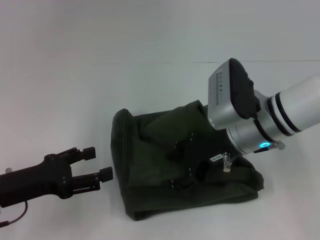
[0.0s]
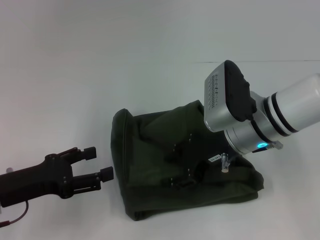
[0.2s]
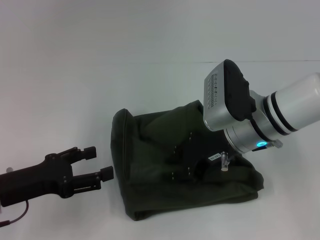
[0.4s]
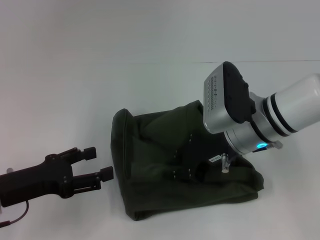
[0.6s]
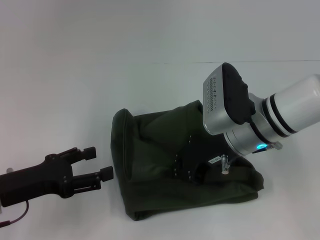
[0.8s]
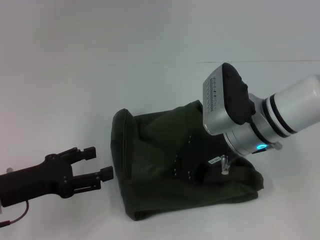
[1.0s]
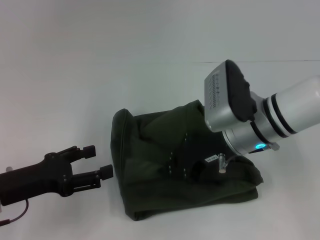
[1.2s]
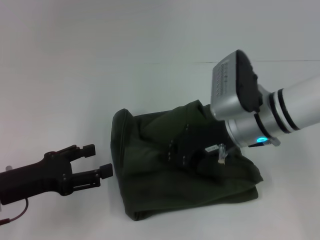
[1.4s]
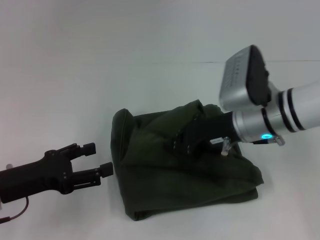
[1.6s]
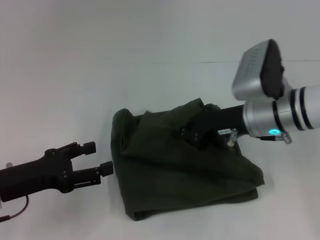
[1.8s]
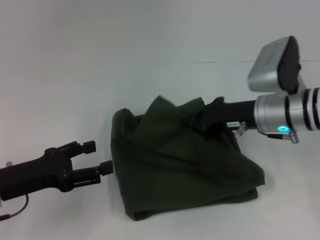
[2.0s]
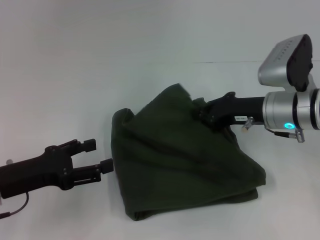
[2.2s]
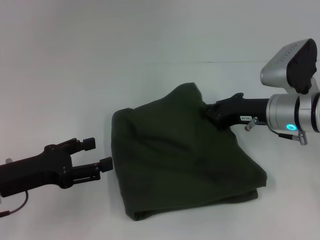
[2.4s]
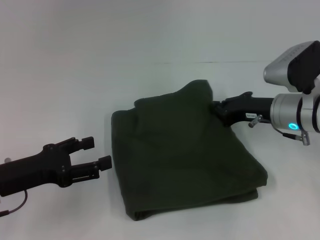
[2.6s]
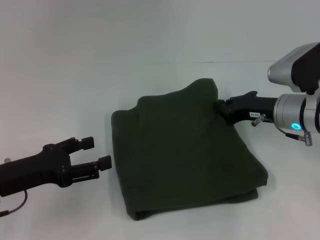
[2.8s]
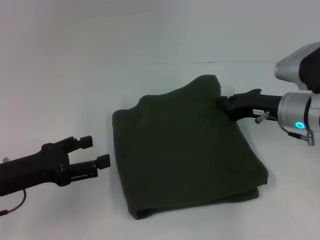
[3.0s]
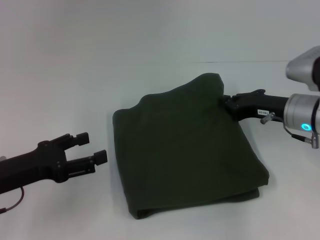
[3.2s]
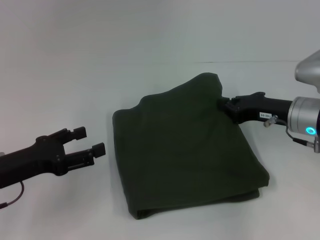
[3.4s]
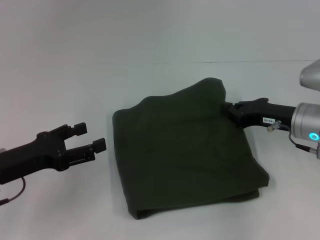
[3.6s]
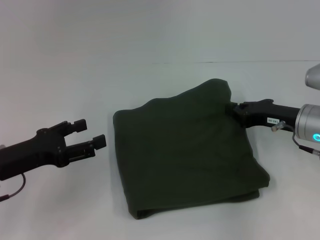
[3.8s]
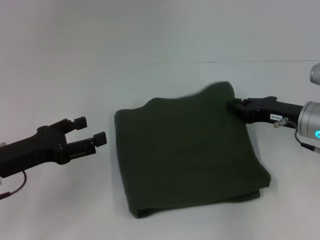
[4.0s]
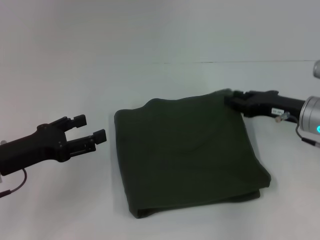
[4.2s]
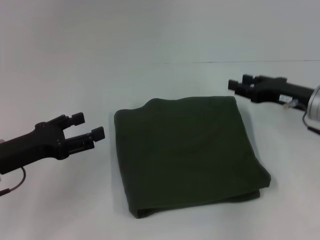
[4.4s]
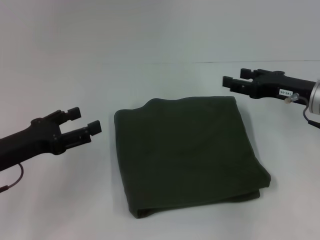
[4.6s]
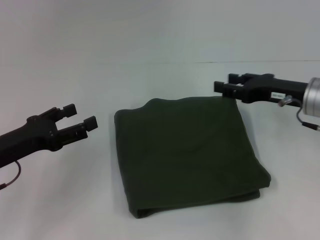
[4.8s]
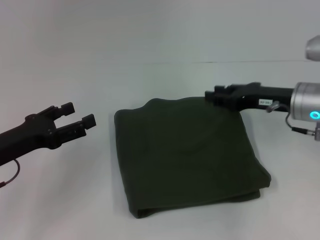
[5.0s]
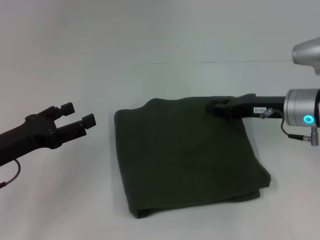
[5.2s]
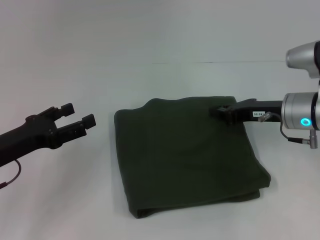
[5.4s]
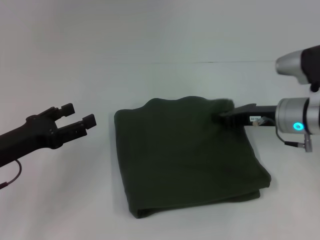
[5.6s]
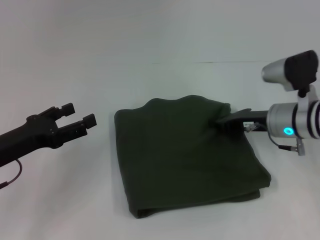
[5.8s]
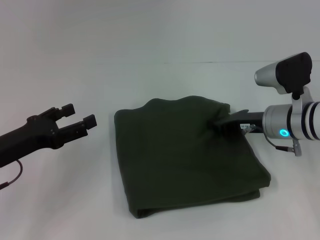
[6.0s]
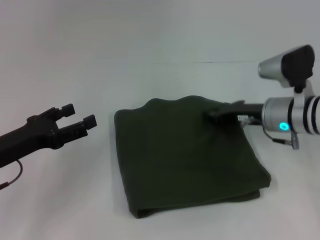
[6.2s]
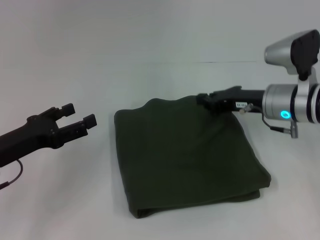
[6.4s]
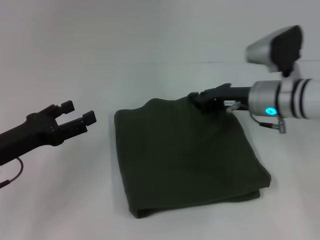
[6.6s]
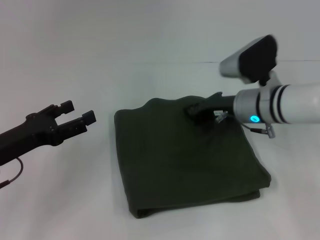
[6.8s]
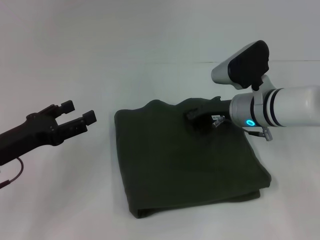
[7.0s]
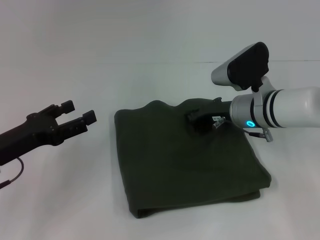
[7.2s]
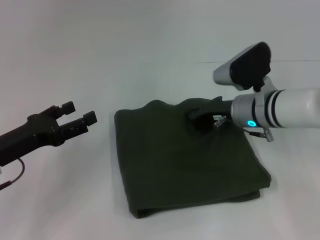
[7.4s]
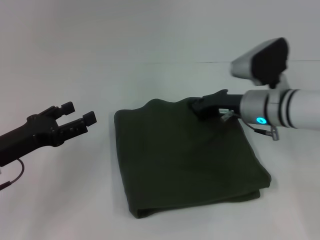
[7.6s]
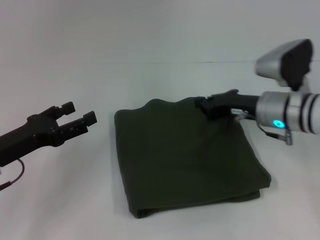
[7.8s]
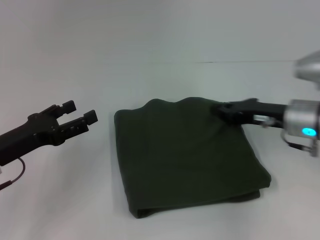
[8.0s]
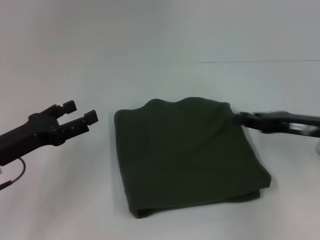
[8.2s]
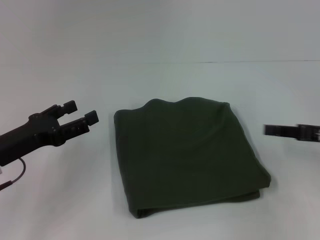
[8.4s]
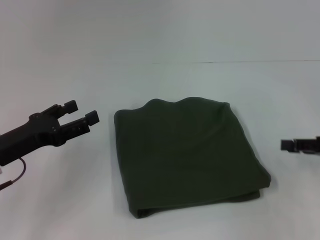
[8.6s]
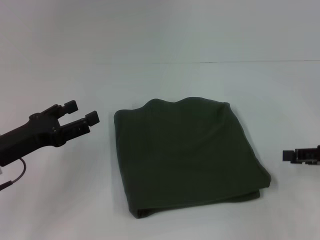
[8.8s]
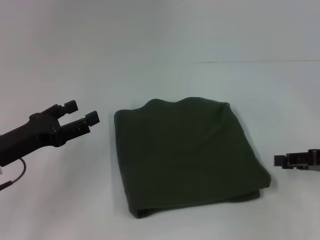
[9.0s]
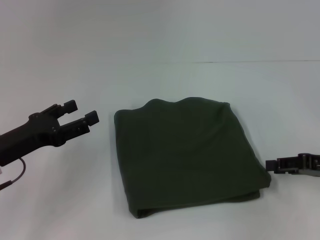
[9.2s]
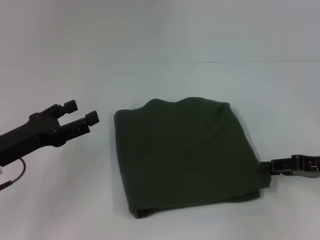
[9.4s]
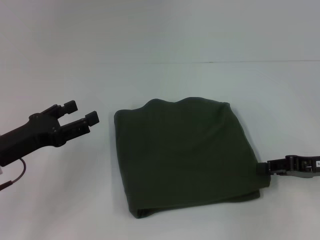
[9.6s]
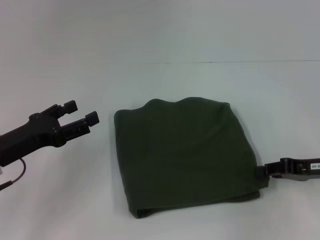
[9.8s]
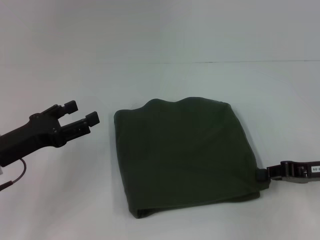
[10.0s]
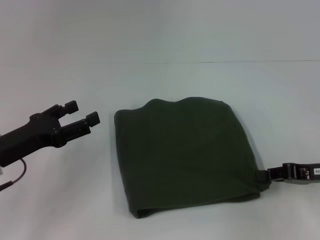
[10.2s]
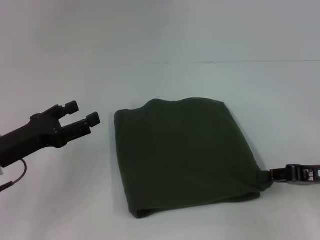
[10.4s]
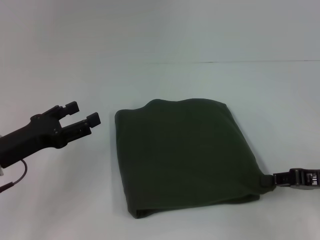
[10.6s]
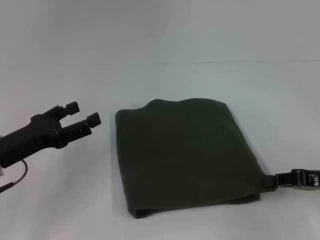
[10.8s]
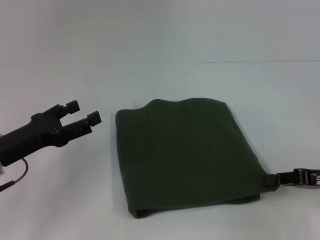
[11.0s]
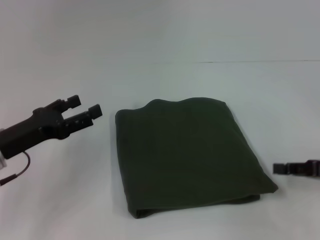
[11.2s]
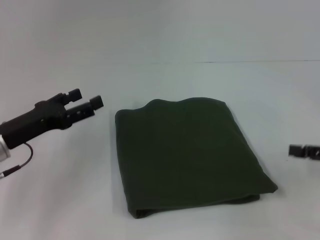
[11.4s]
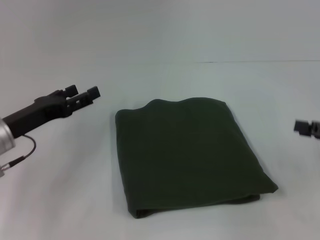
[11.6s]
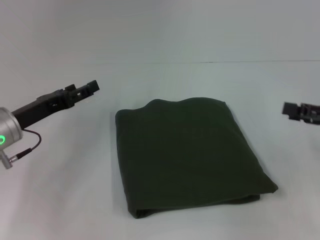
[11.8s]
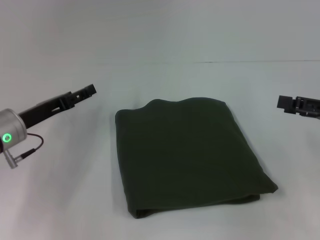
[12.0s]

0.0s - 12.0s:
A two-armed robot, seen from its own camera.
0.0s - 1.6s: The right gripper closes.
1.6s - 3.0s: The right gripper travels to the right by approximately 10 cm.
3.0s - 4.4s: The right gripper opens up.
4.4s - 6.0s: The right gripper heads to the left, covering about 5 cm, and closes up.
6.0s - 7.6s: The grippers move only a little.
7.6s - 9.0s: The right gripper travels to the right and backward by roughly 20 cm, and opens.
9.0s - 10.4s: The right gripper closes its fingers.
10.4s - 12.0s: The right gripper shifts about 5 cm upward, and opens; the left gripper goes approximately 5 cm forward.

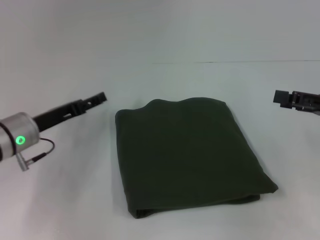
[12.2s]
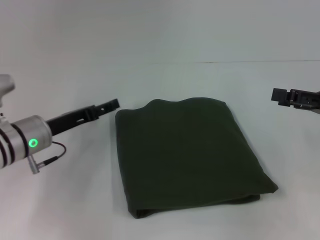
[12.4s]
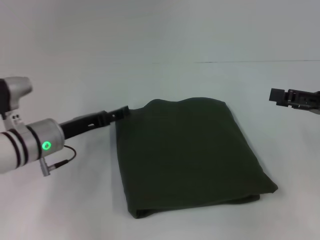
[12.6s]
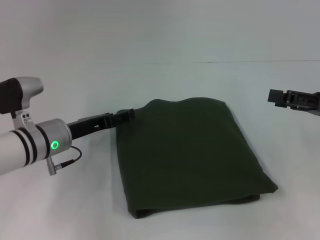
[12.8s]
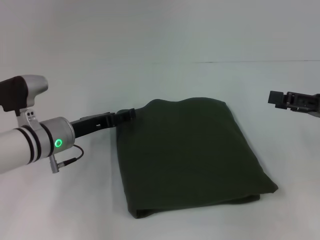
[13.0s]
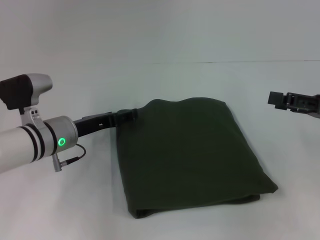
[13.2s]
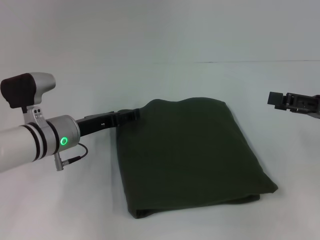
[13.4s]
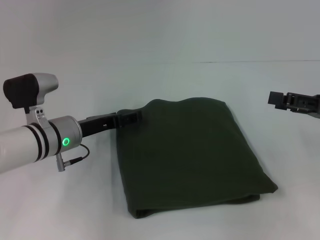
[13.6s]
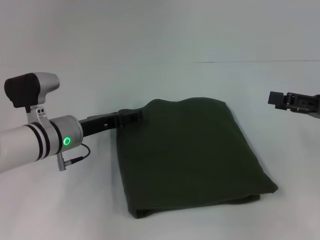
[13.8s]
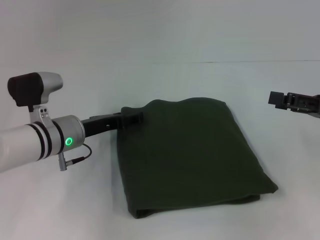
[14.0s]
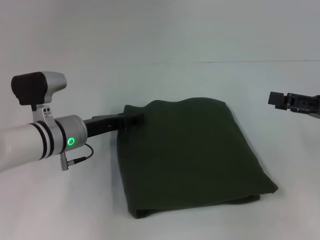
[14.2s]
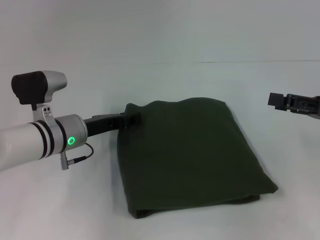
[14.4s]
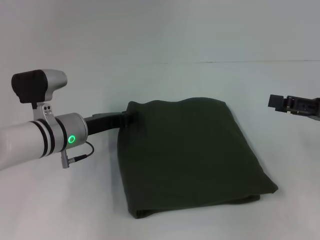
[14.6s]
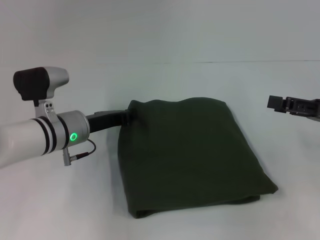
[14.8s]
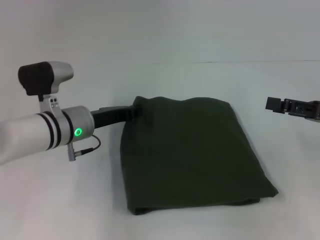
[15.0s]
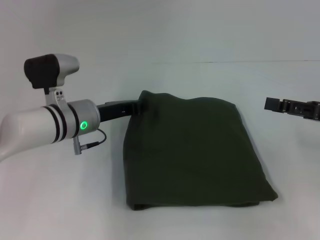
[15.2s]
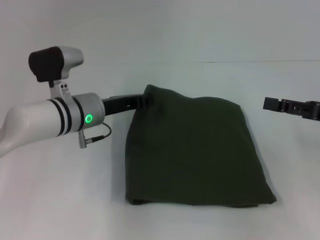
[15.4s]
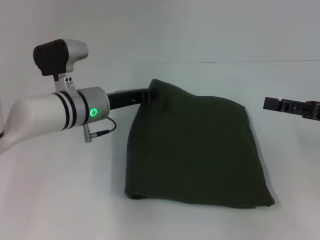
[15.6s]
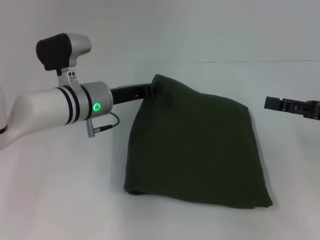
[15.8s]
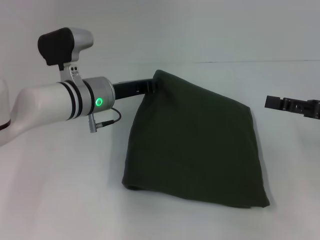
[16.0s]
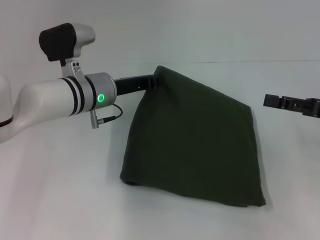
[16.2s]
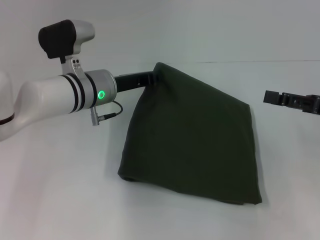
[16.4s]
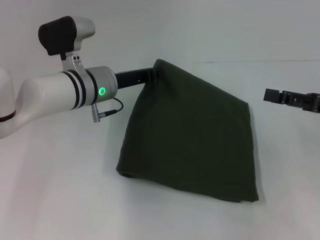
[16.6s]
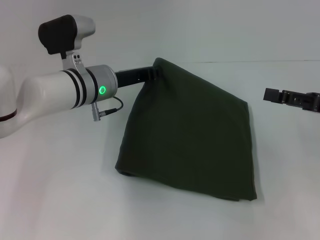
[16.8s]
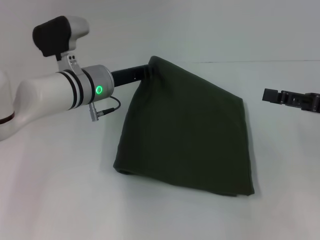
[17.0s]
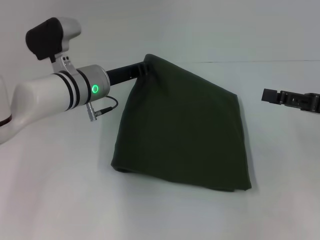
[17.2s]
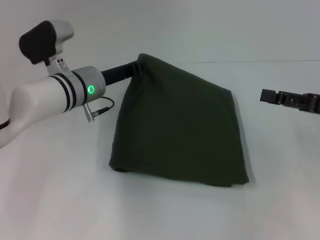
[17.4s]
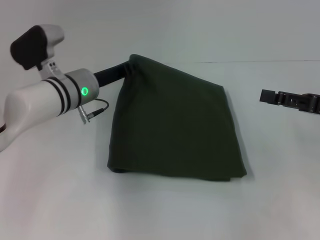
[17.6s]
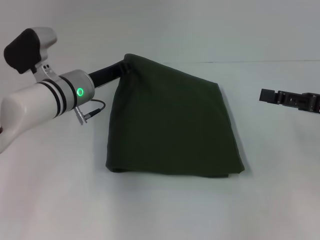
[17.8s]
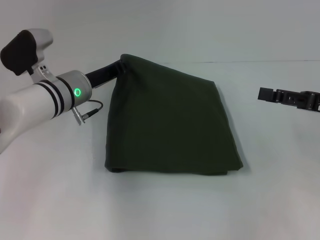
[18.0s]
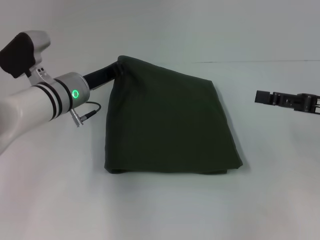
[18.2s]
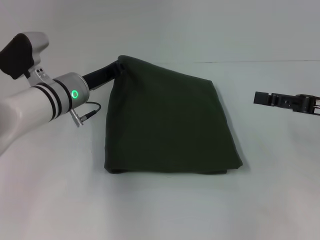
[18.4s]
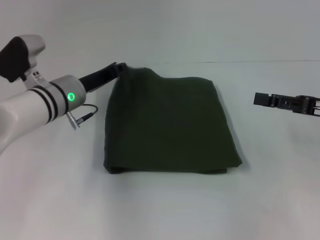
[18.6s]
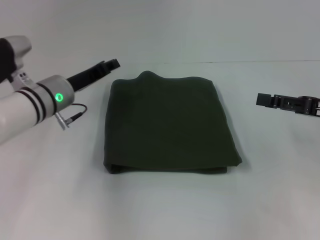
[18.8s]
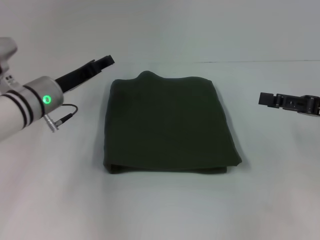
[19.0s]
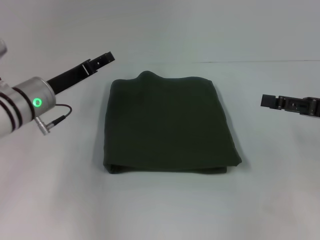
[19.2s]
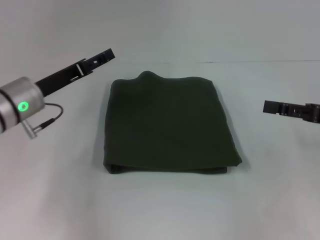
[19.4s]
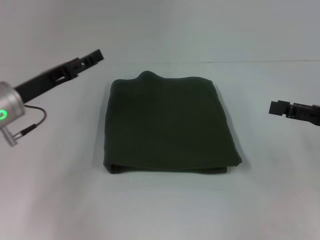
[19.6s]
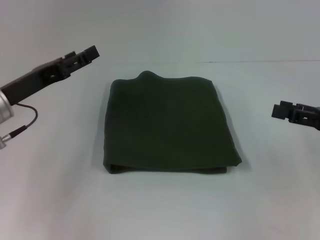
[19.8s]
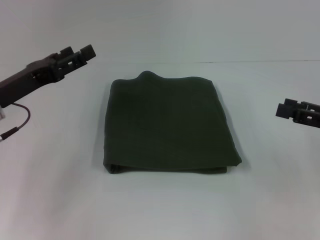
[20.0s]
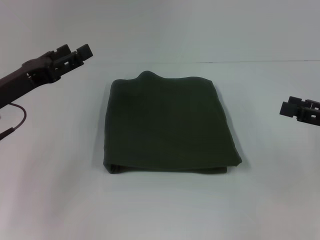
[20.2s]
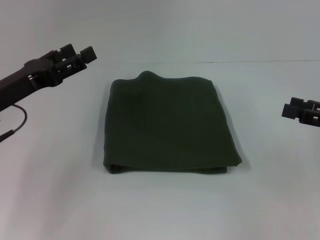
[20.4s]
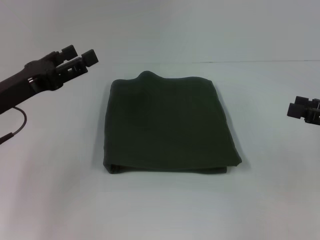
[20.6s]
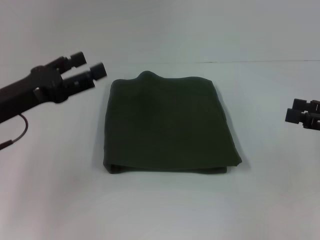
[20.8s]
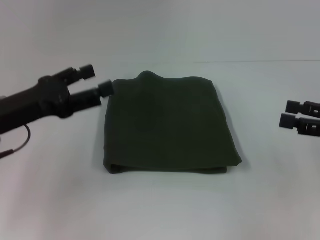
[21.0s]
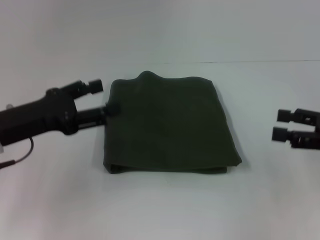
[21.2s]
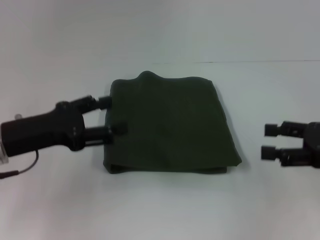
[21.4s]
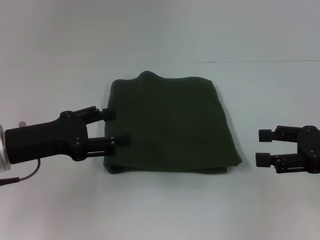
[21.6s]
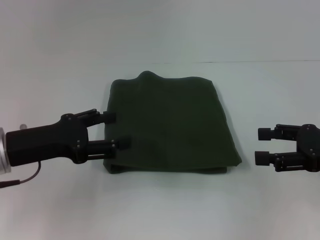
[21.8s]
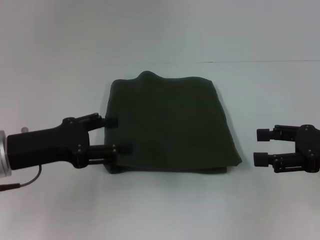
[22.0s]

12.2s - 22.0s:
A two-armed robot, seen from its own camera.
12.2s - 13.6s: The left gripper shifts roughly 5 cm to the right.
13.6s - 15.0s: The left gripper closes.
15.0s - 16.4s: The left gripper moves some 5 cm.
16.4s - 17.8s: The grippers make only small movements.
17.8s - 19.2s: The left gripper goes some 5 cm to the left, and opens its fingers.
19.2s - 20.6s: The left gripper heads backward and to the left, covering approximately 10 cm, and opens up.

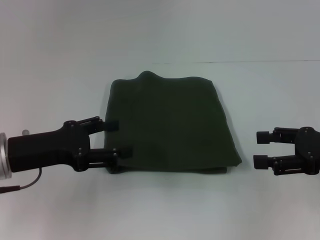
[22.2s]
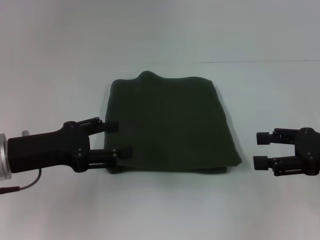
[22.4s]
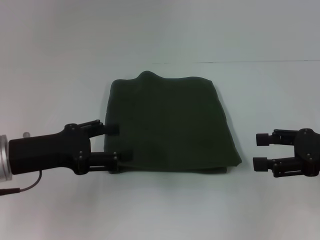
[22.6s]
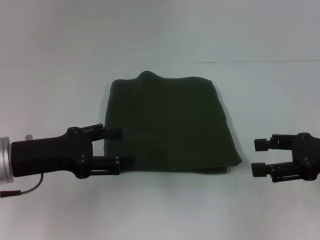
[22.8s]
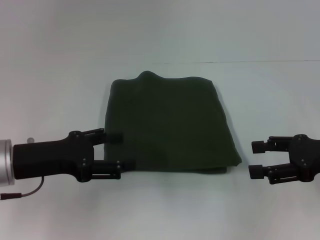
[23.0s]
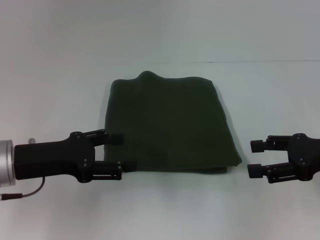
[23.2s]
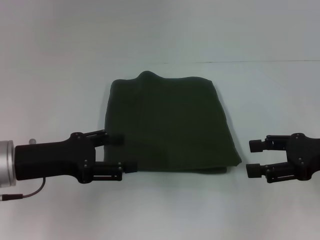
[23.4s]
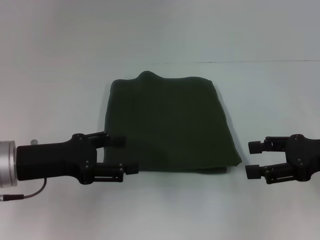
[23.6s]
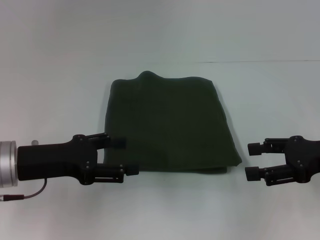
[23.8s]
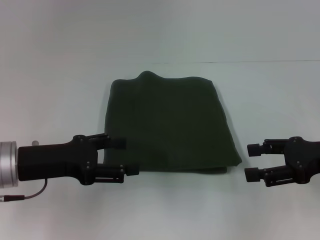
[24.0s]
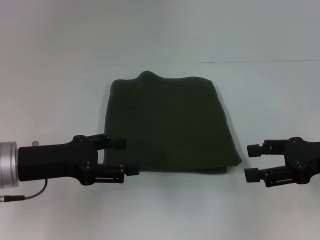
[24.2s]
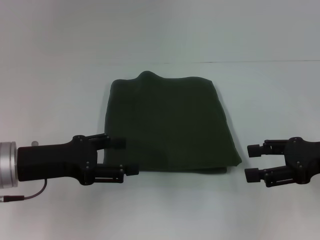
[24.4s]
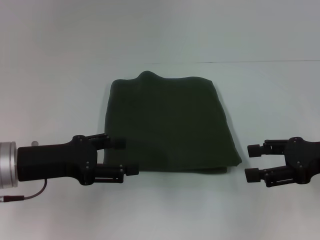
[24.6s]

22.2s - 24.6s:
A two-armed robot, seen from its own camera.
22.2s - 23.4s: Both grippers stay about where they are.
23.4s - 24.6s: Neither gripper changes place.
